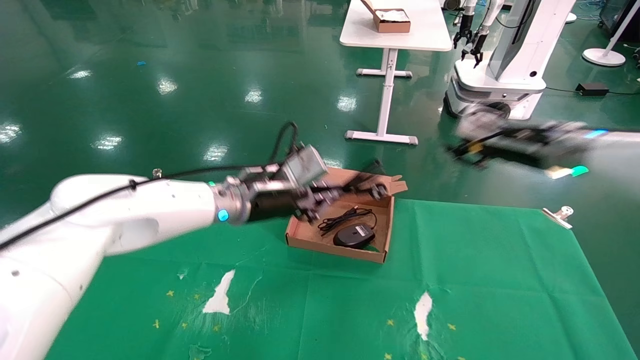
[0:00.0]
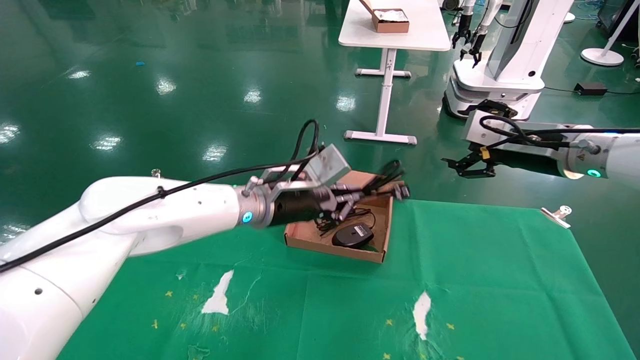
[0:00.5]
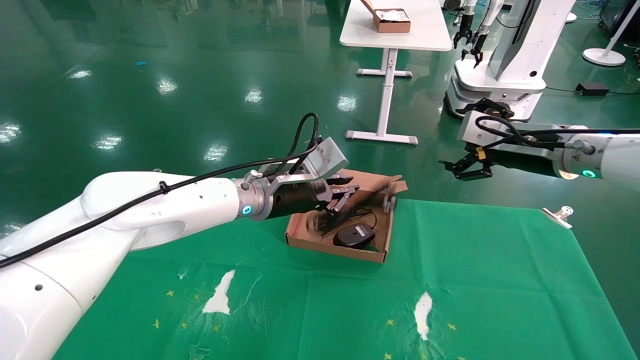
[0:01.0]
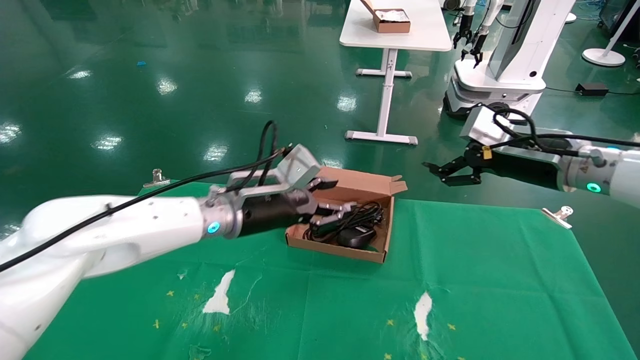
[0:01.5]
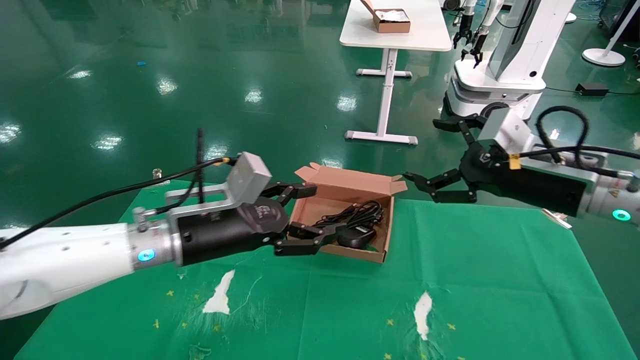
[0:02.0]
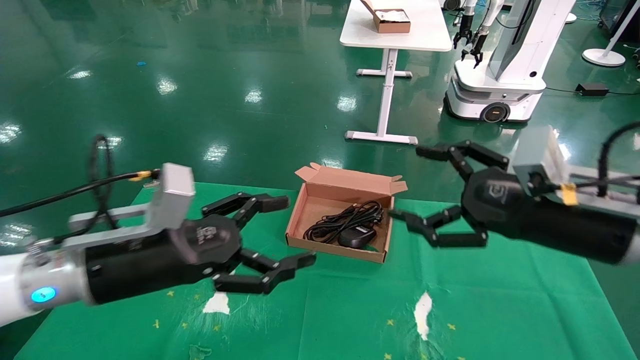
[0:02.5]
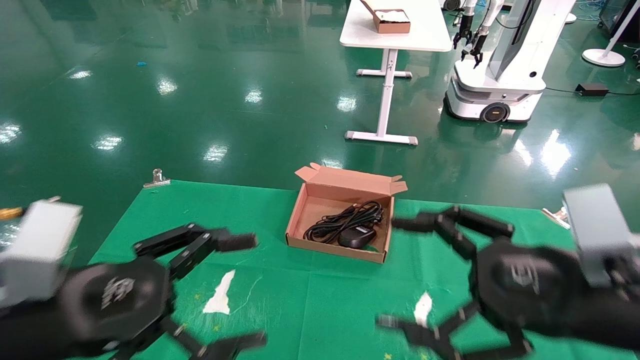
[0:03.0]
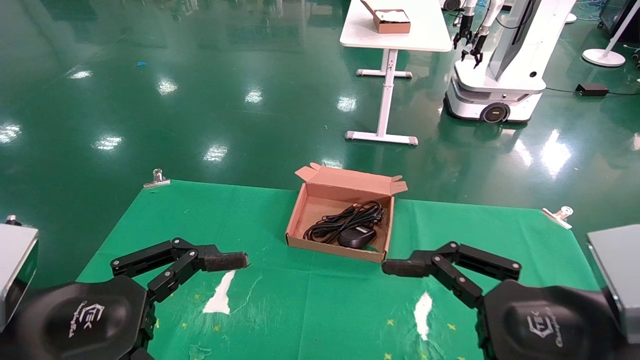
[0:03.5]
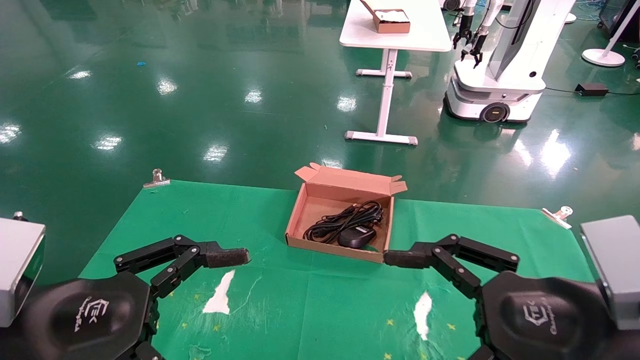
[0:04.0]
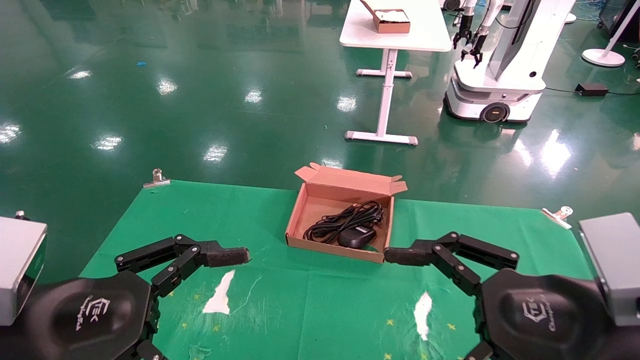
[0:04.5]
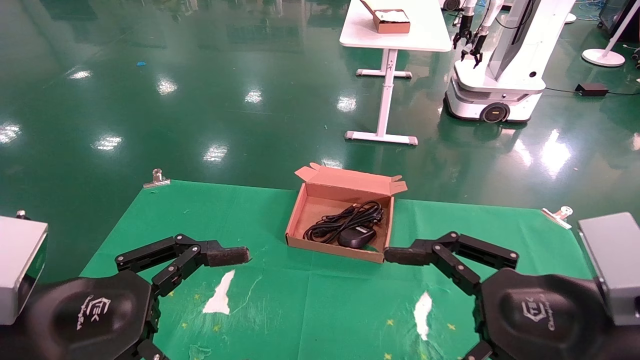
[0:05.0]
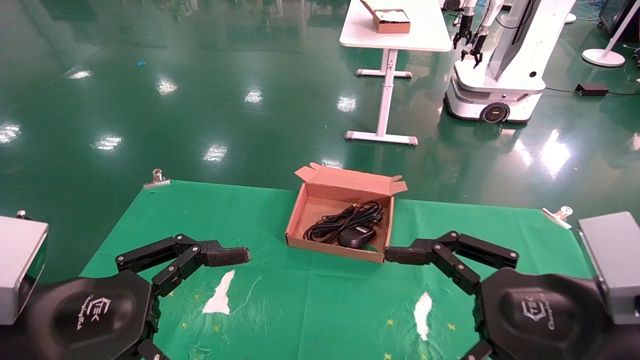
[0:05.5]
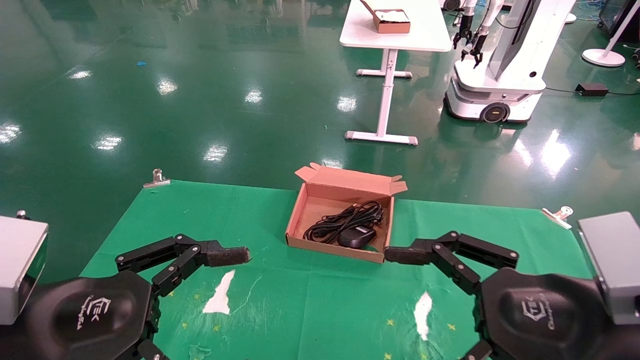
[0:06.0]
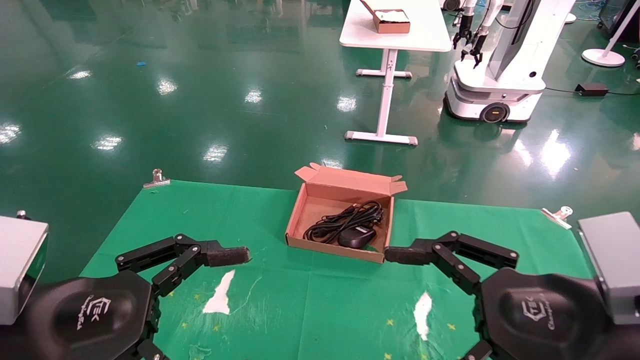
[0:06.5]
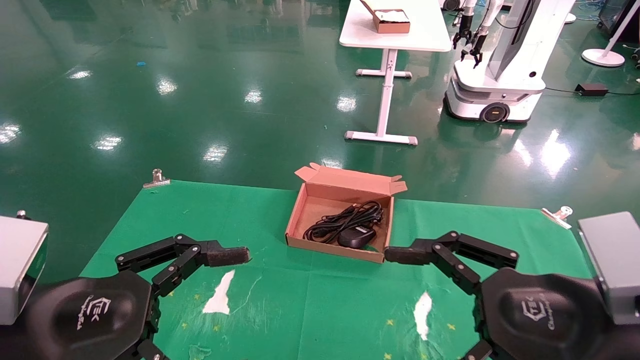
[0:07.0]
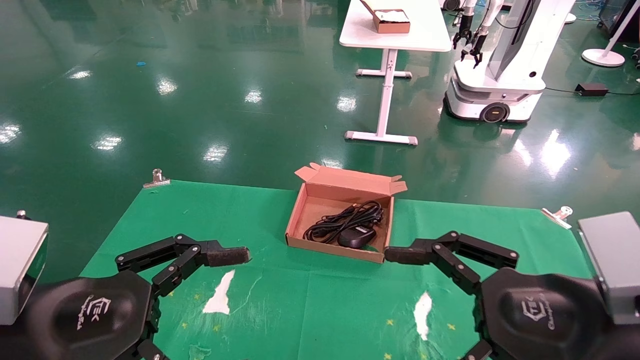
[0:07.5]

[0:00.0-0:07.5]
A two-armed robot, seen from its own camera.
0:00.0 to 0:02.0: The right gripper travels backward by roughly 10 cm, and opens up, while the left gripper moves backward and to the left, approximately 10 cm, and opens its fingers.
0:02.0 to 0:04.0: The right gripper heads backward, covering some 20 cm; the left gripper travels backward and to the left by about 20 cm.
0:04.0 to 0:07.5: Neither gripper changes place.
